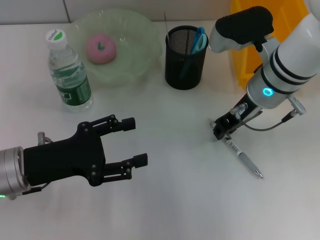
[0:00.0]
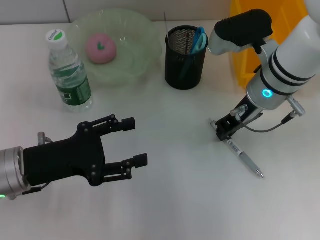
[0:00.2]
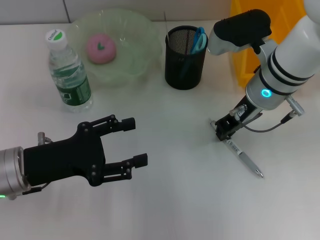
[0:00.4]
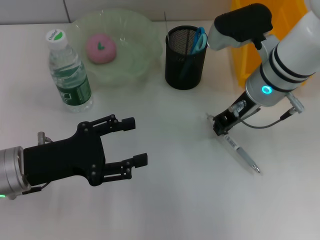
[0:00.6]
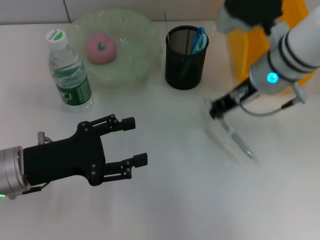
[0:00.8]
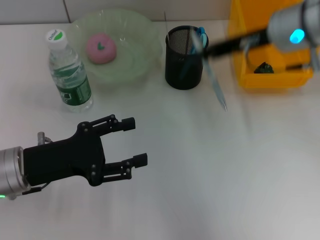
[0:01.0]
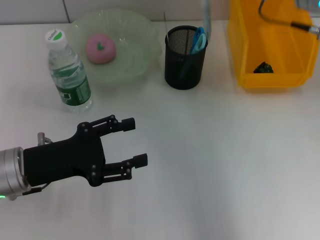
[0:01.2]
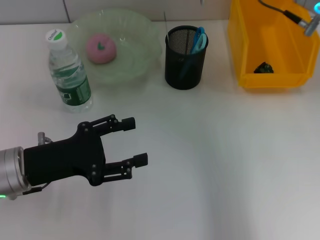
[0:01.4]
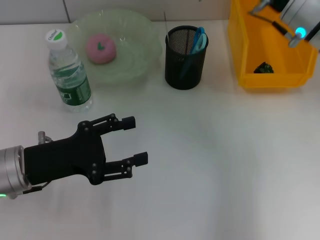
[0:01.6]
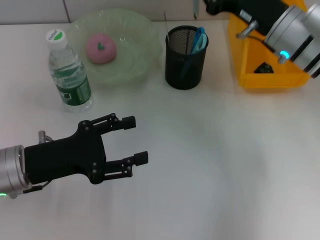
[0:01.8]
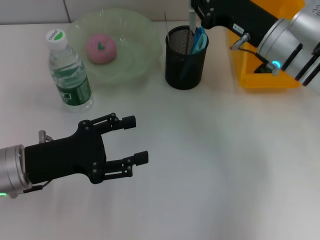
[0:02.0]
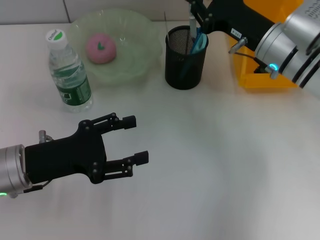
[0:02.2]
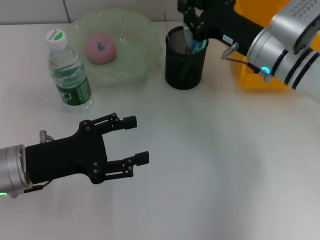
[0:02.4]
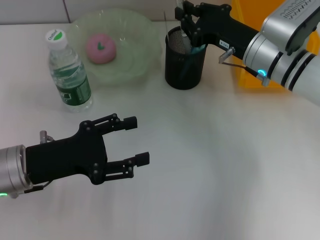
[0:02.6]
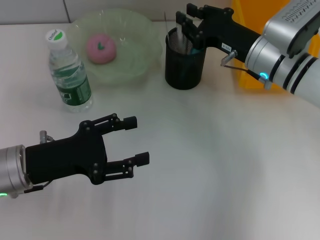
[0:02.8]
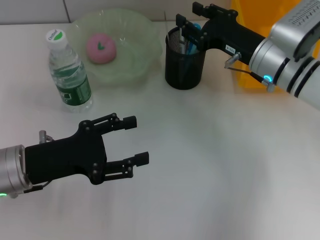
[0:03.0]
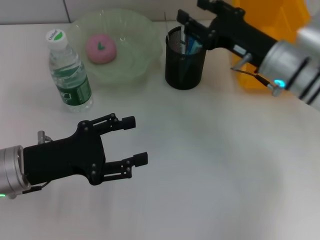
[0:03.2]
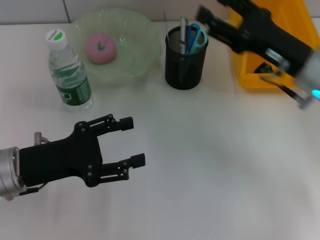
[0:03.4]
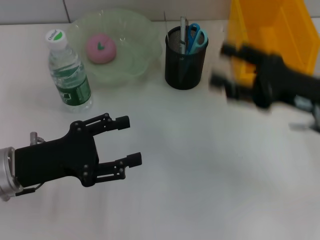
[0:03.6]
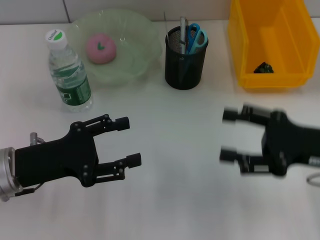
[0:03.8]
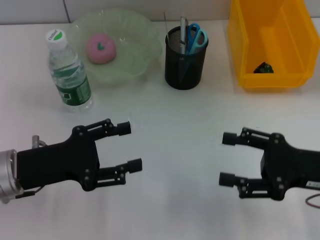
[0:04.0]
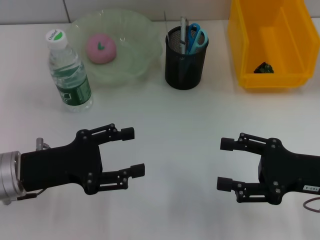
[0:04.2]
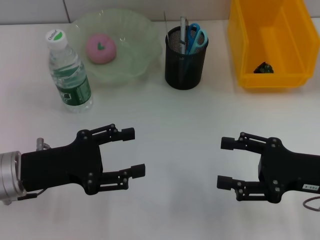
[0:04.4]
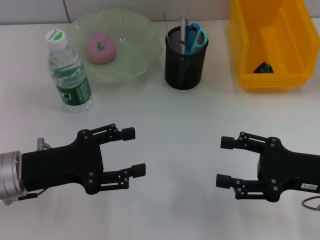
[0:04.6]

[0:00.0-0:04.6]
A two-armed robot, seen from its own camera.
Step, 0:00.6 to 0:03.2: Place the gray spring-action pen into the pen holder with the right hand.
0:00.0 to 0:01.6: The right gripper goes upward and returns, about 10 cm each way.
0:01.6 to 0:03.0: The right gripper is displaced downward by roughly 5 cm.
0:03.0 to 0:04.6: The right gripper shifts some 20 cm backward and to the right, and opens its fingers.
